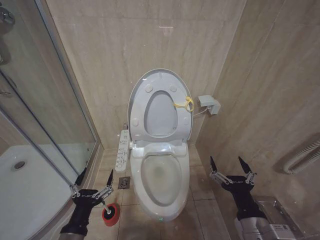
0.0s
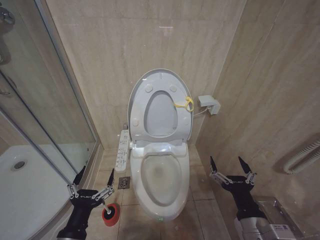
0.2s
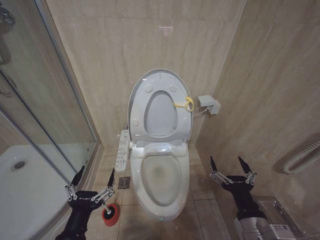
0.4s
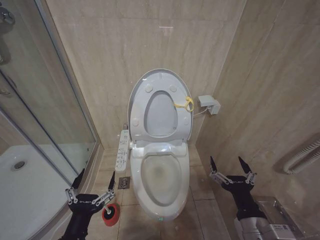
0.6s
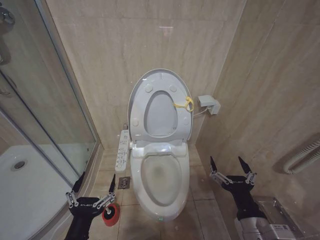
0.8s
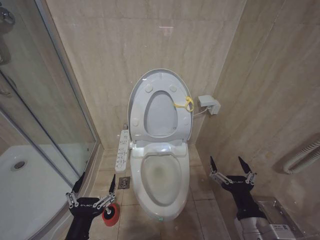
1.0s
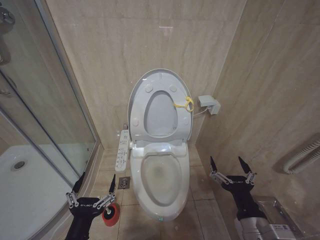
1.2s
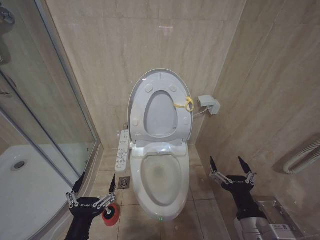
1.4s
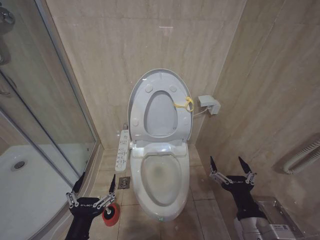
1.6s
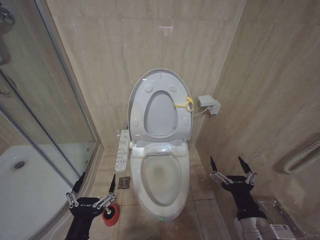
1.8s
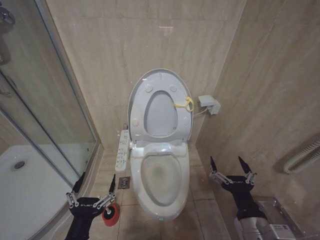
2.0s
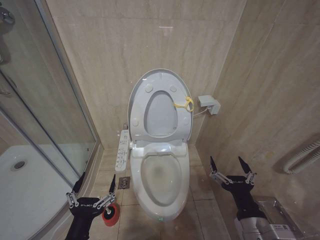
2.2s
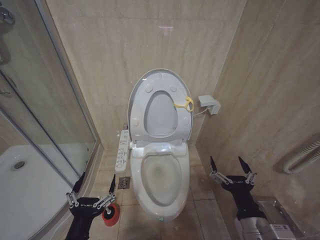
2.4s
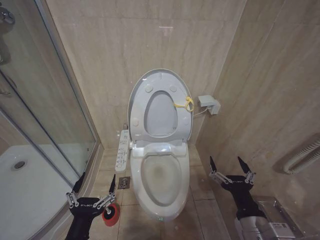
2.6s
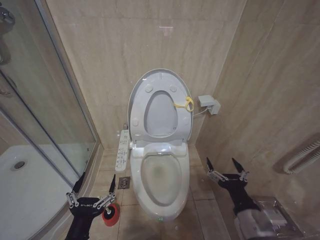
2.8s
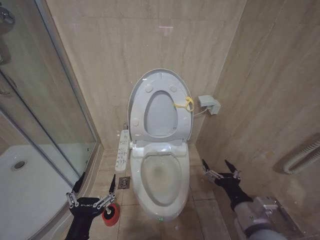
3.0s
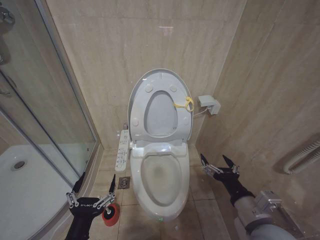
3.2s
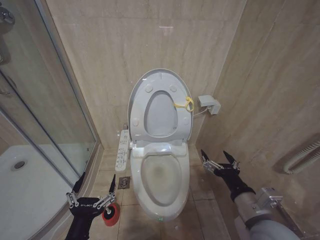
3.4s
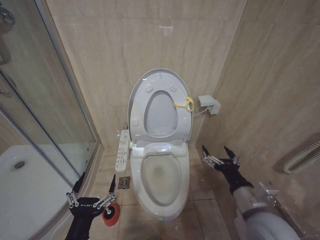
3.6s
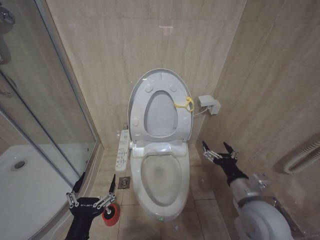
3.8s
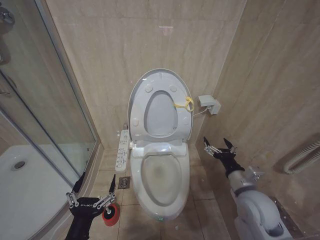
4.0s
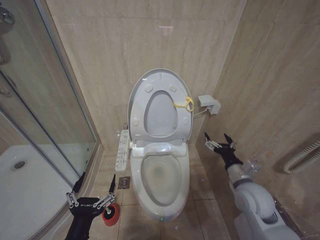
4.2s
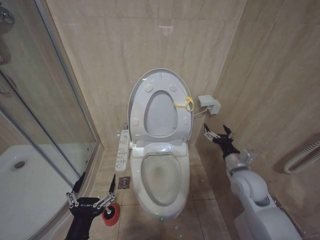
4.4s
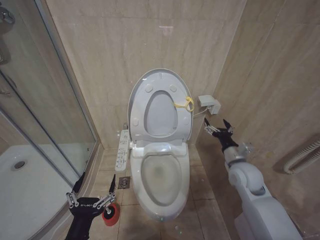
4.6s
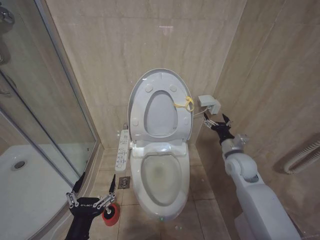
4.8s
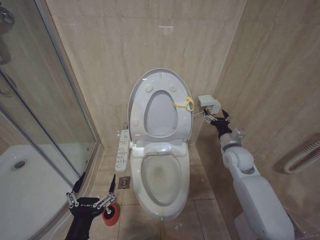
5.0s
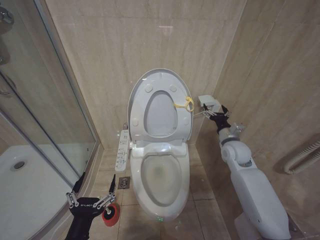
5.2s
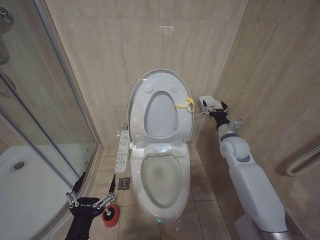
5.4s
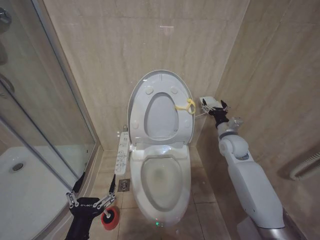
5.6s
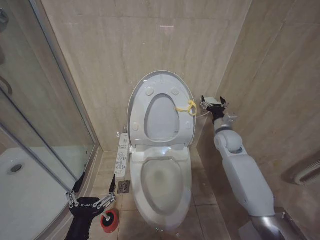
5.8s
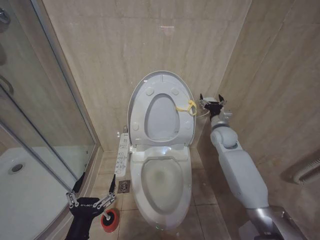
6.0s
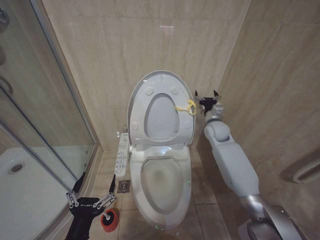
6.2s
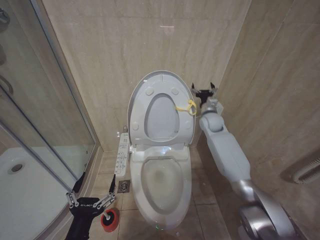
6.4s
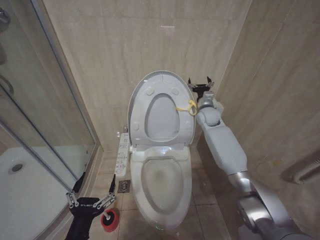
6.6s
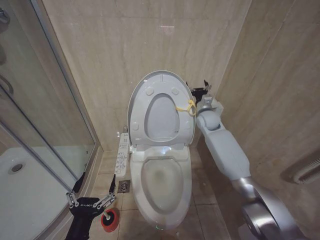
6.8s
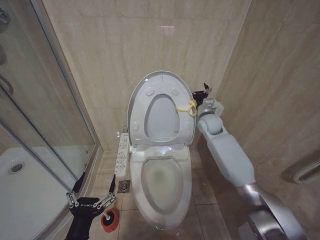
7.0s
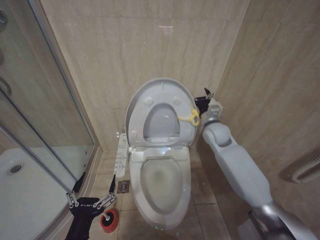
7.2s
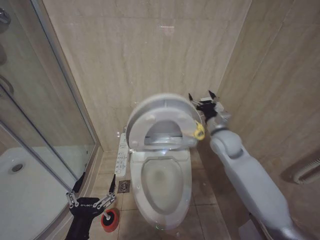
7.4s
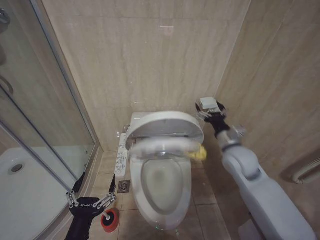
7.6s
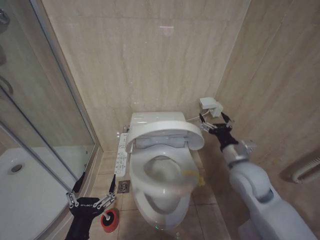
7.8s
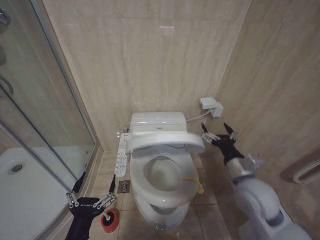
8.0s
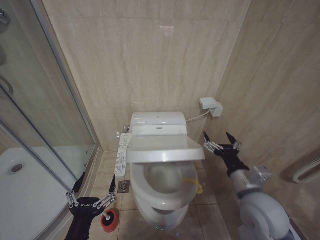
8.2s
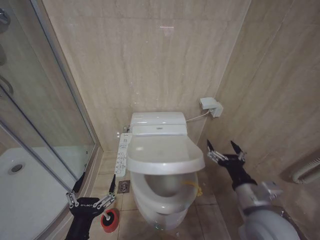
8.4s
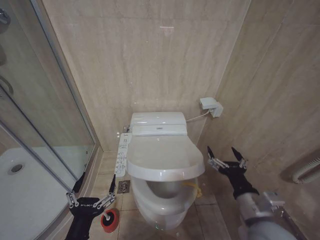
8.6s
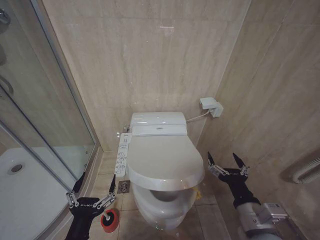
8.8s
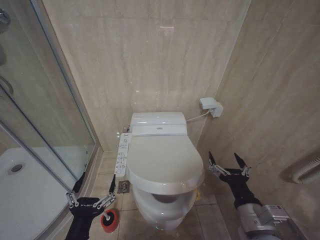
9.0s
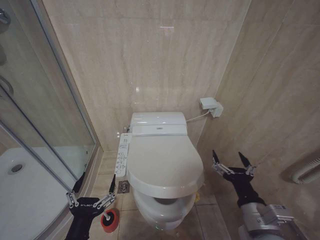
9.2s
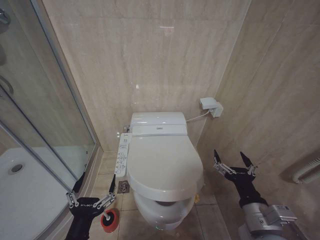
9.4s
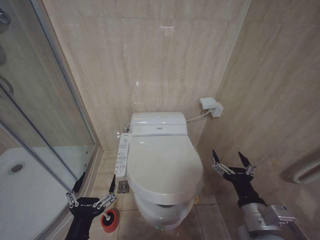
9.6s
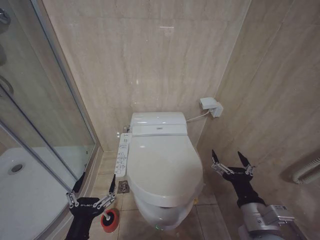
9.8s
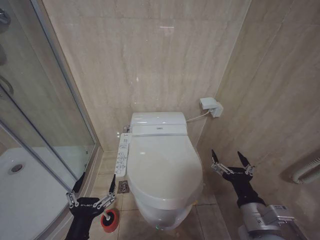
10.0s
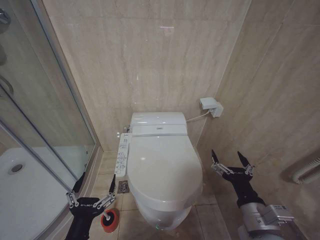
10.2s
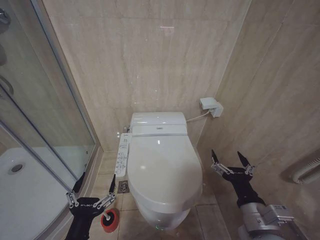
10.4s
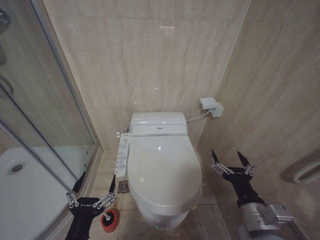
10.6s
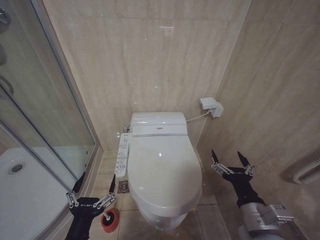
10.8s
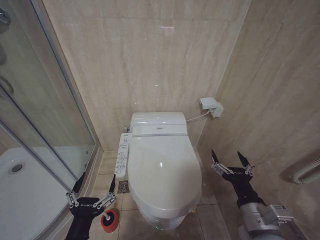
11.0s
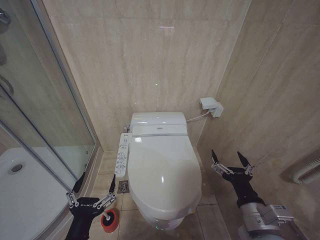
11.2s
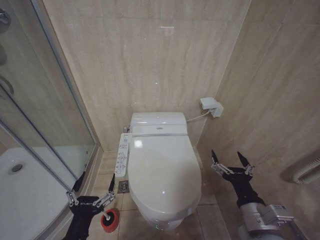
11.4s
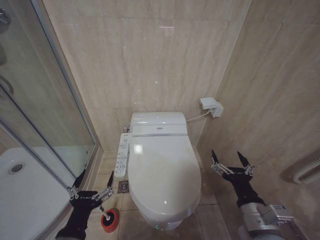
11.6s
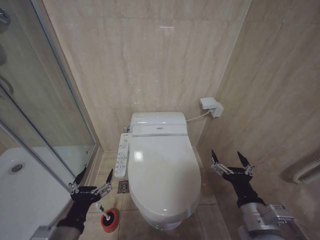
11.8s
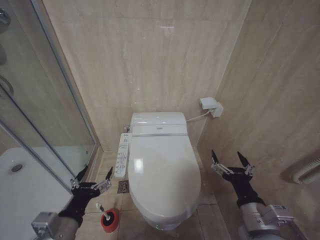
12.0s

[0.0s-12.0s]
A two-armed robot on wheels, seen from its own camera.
Task of the whole recording: Open the toilet lid, clean the toilet bowl with a toilet brush, close the toilet lid, and flush.
0.0s to 1.6s: The left gripper changes place by roughly 5 cm.
1.6s to 3.0s: The grippers stay close to where they were, moving slightly.
3.0s to 4.4s: The right gripper shifts some 15 cm forward.
4.4s to 6.0s: The right gripper shifts roughly 20 cm forward.
6.0s to 7.6s: The right gripper moves backward, roughly 10 cm.
7.6s to 9.0s: The right gripper goes about 25 cm backward.
9.0s to 10.4s: The two grippers keep their place.
10.4s to 12.0s: The left gripper changes place by roughly 5 cm.

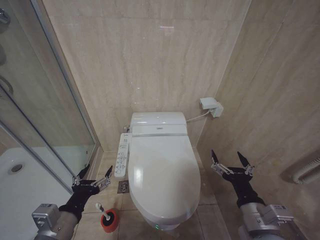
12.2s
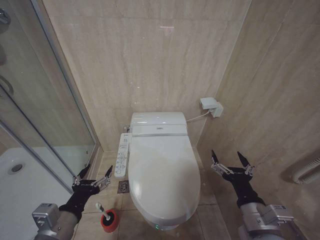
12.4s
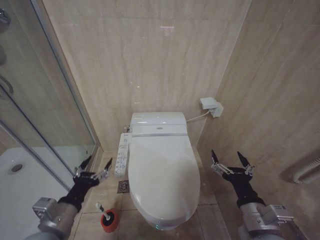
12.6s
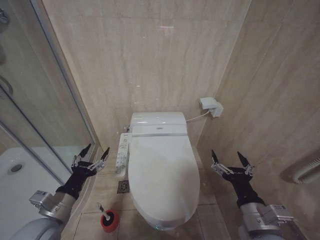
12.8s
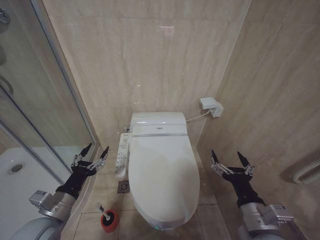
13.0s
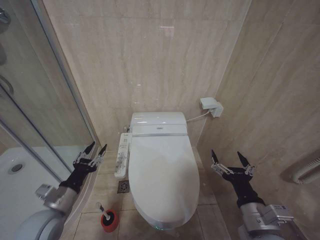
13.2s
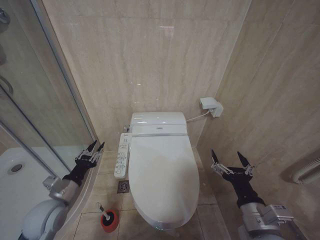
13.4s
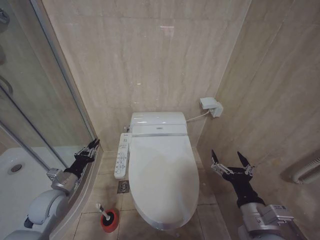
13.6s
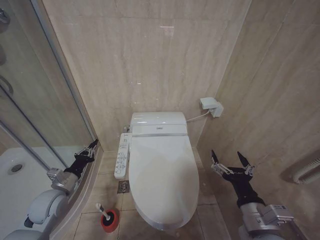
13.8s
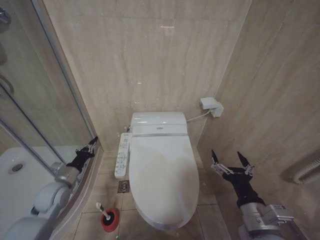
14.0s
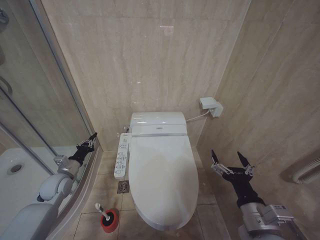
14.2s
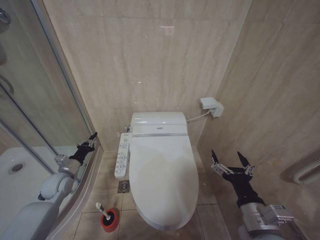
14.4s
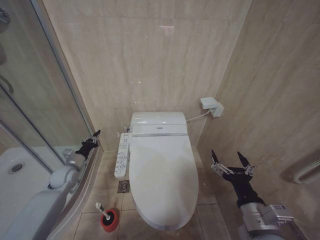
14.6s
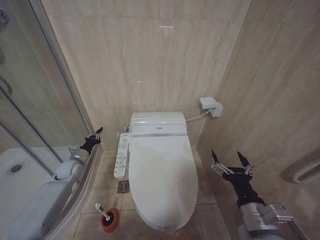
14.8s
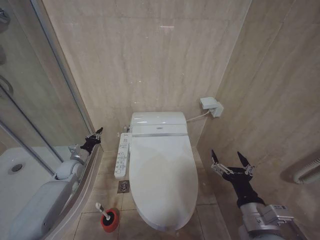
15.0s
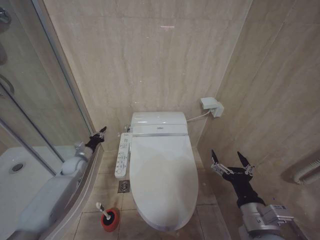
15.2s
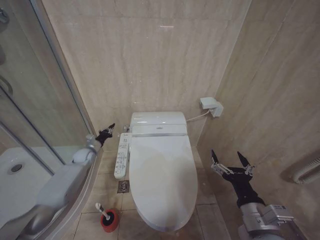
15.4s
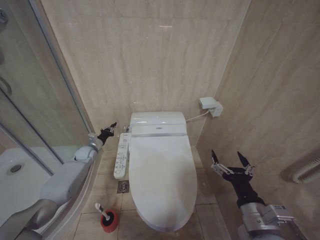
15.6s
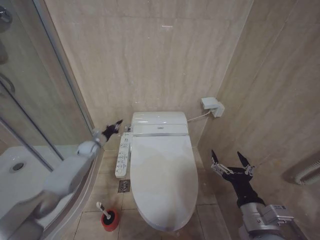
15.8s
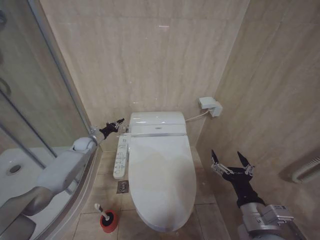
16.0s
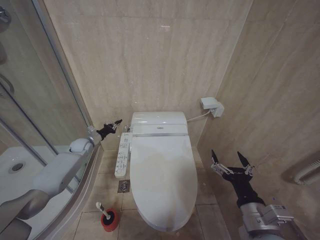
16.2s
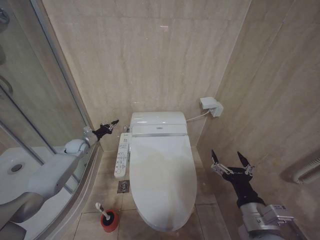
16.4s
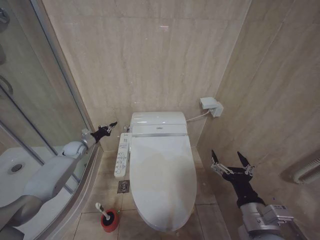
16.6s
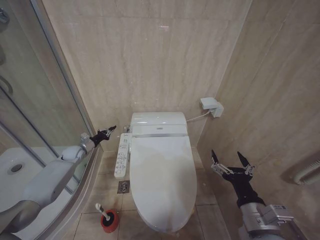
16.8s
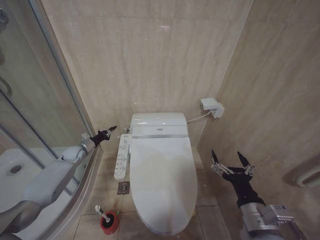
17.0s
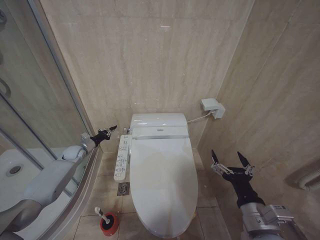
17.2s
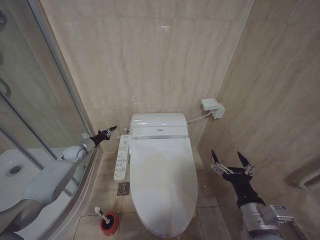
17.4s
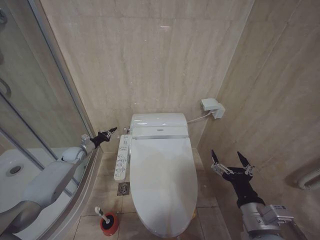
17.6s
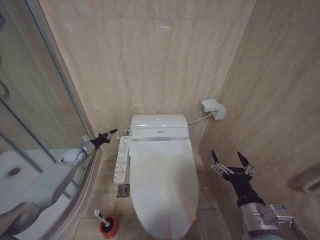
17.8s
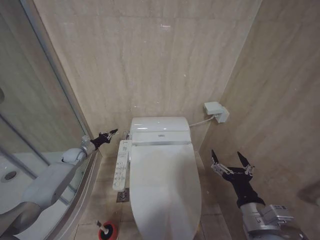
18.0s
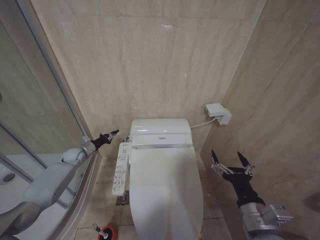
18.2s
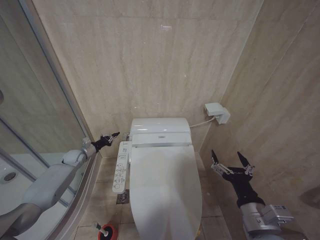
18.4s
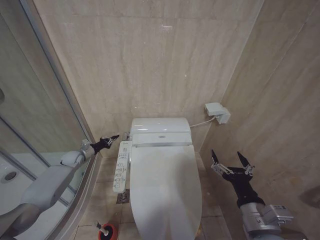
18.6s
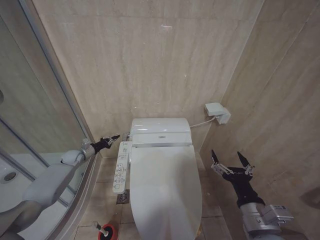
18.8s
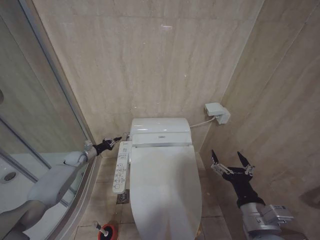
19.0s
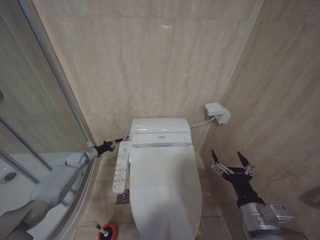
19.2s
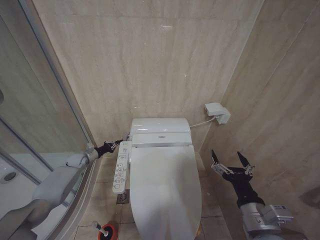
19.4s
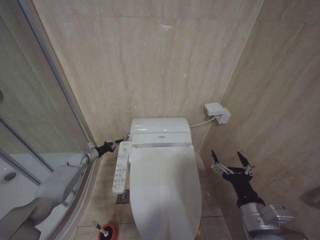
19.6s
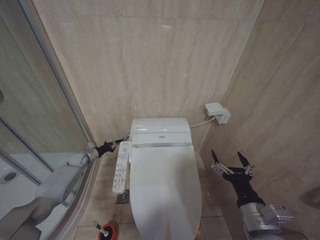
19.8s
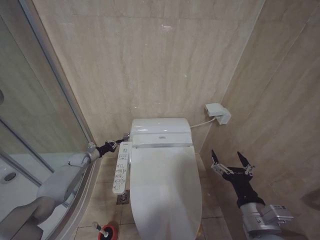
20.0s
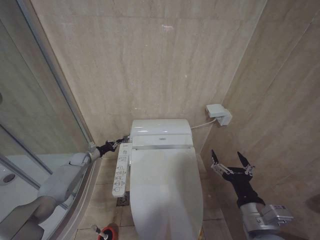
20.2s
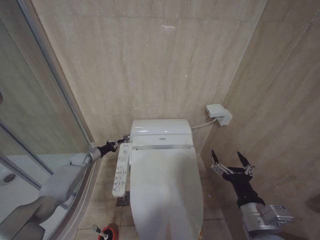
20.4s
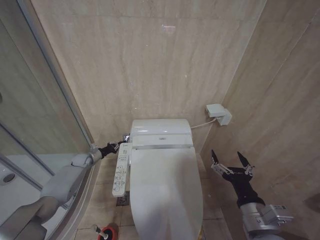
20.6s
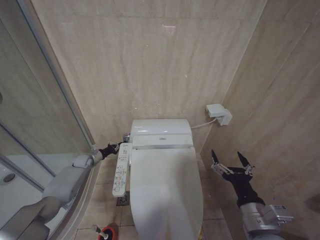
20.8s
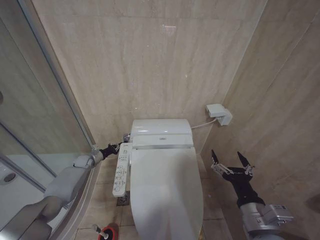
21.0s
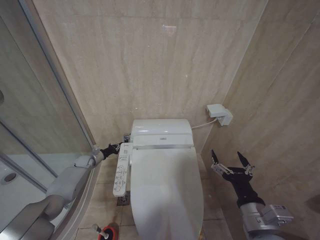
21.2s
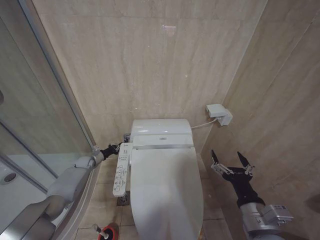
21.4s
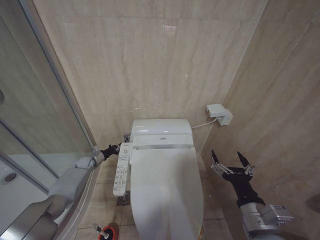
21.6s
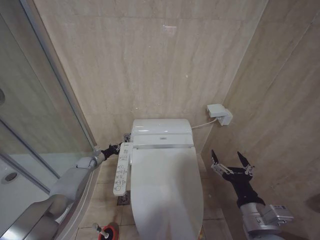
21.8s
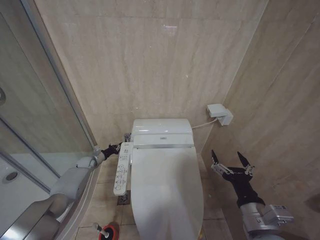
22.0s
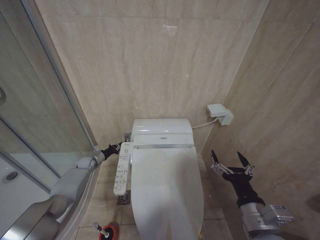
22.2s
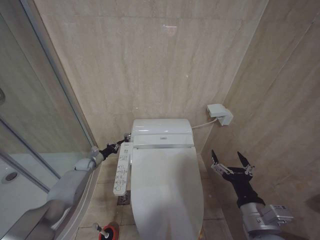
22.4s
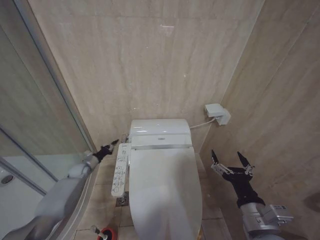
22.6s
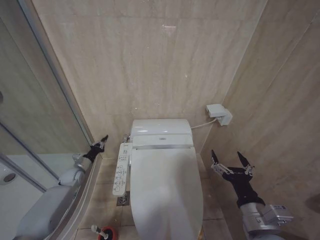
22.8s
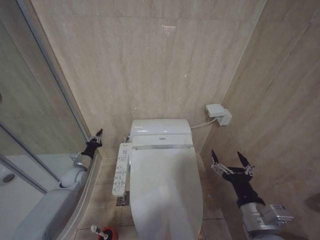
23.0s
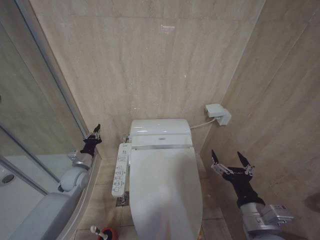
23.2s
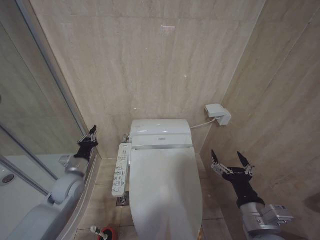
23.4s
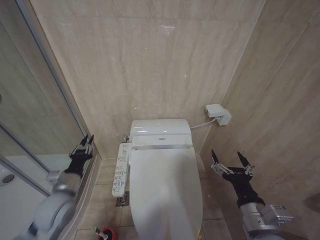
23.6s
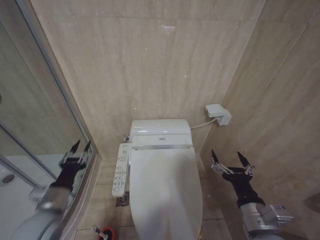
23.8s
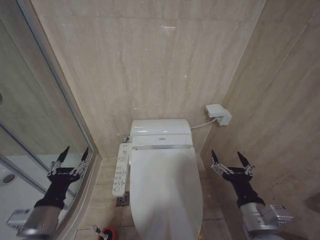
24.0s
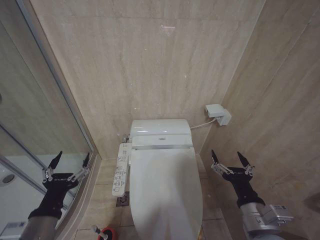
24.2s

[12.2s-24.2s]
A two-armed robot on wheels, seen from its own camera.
Task of the whole recording: Open the toilet lid, clean the toilet bowl with a toilet brush, close the toilet lid, and flush.
12.2s to 13.8s: The left gripper goes about 20 cm forward, to the left and downward, and closes its fingers.
13.8s to 15.2s: The left gripper is displaced forward by some 15 cm.
15.2s to 16.6s: The left gripper goes approximately 10 cm forward.
16.6s to 18.2s: The grippers stay close to where they were, moving slightly.
18.2s to 19.8s: The left gripper shifts by approximately 5 cm.
19.8s to 22.6s: There are only small adjustments of the grippers.
22.6s to 24.2s: The left gripper shifts roughly 40 cm backward and upward, and opens.
